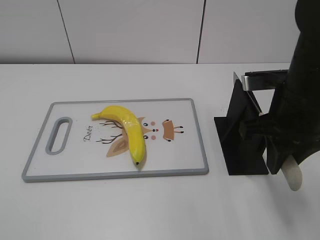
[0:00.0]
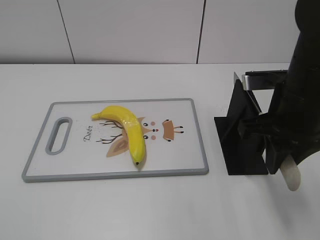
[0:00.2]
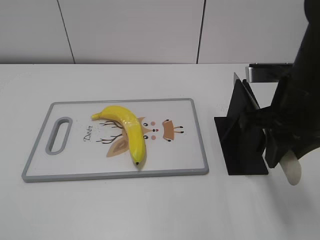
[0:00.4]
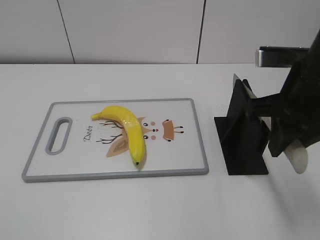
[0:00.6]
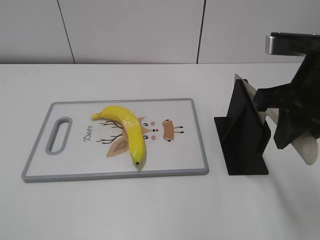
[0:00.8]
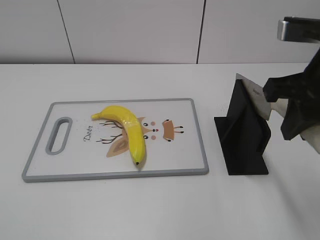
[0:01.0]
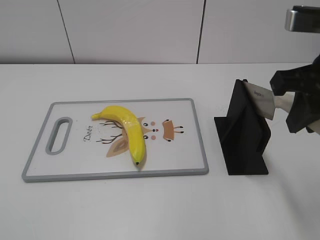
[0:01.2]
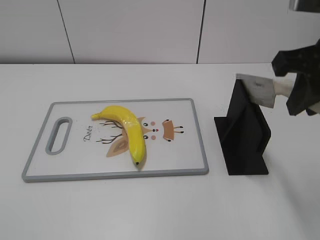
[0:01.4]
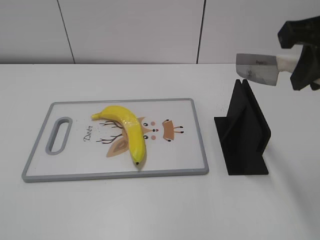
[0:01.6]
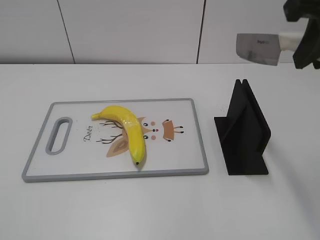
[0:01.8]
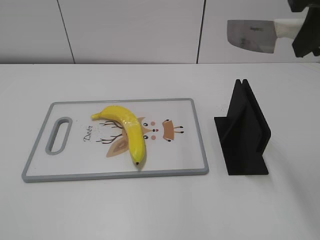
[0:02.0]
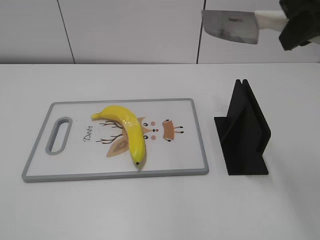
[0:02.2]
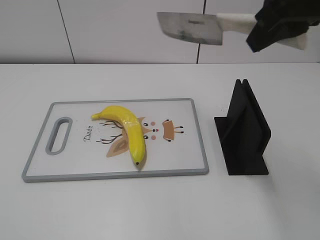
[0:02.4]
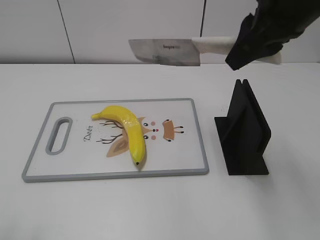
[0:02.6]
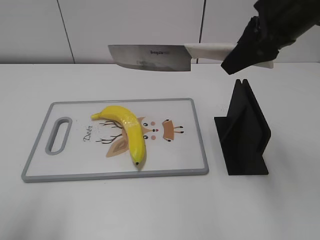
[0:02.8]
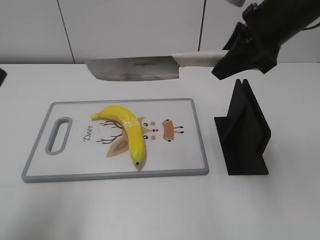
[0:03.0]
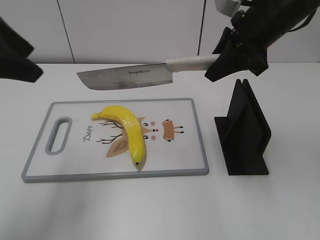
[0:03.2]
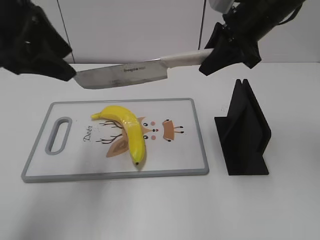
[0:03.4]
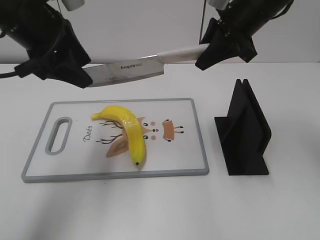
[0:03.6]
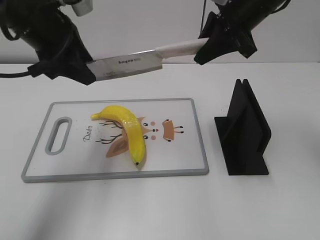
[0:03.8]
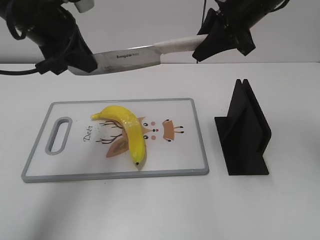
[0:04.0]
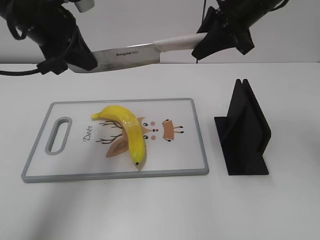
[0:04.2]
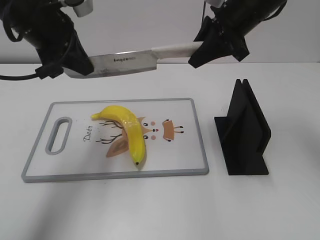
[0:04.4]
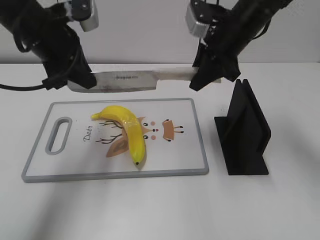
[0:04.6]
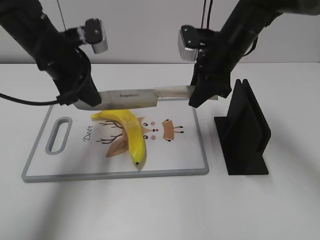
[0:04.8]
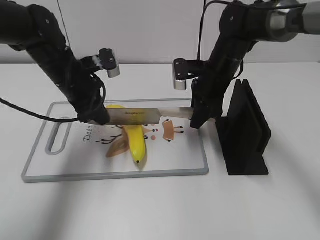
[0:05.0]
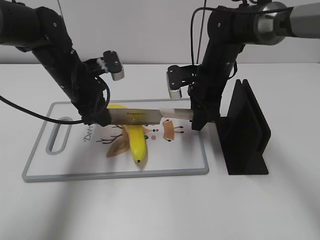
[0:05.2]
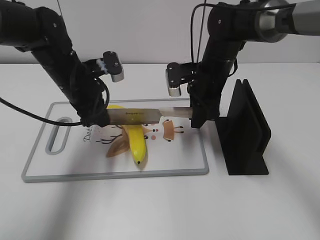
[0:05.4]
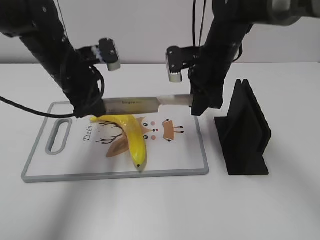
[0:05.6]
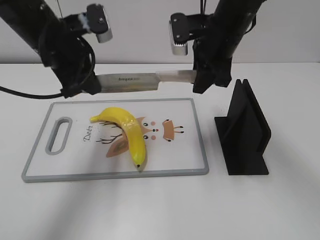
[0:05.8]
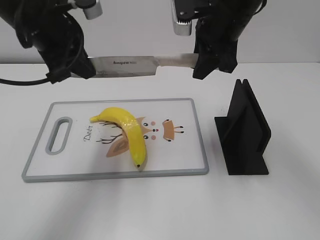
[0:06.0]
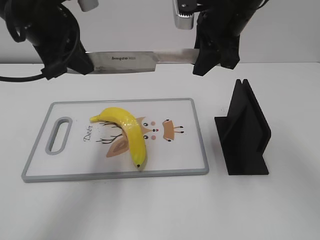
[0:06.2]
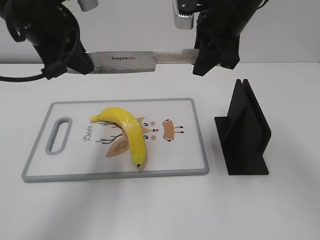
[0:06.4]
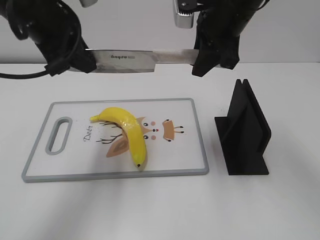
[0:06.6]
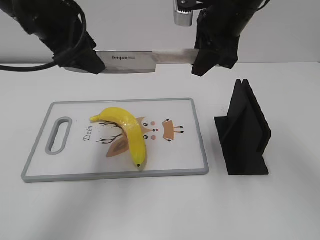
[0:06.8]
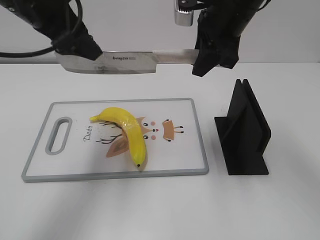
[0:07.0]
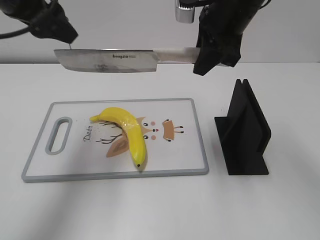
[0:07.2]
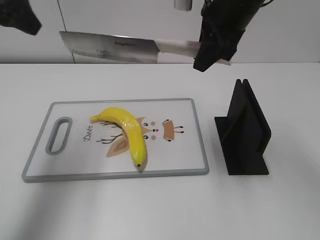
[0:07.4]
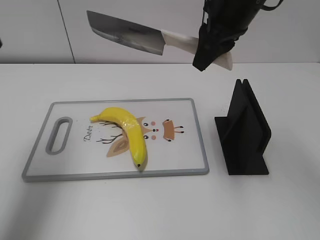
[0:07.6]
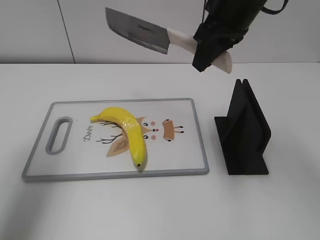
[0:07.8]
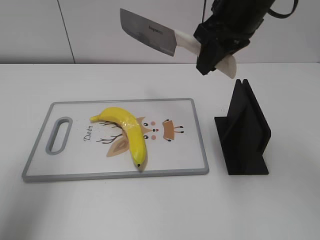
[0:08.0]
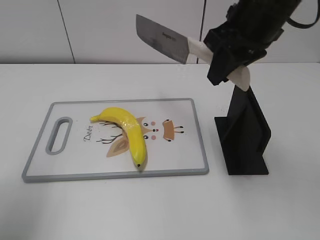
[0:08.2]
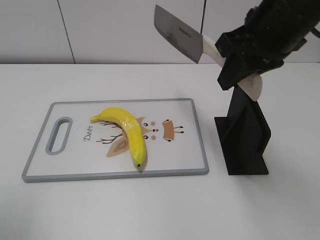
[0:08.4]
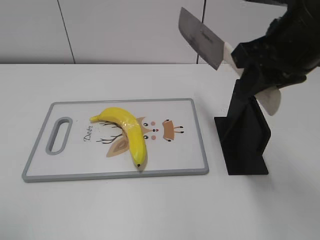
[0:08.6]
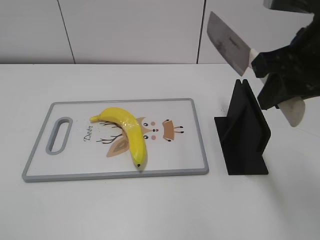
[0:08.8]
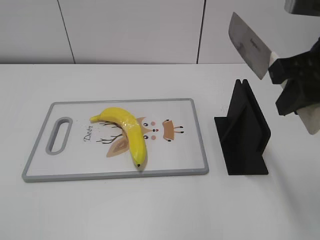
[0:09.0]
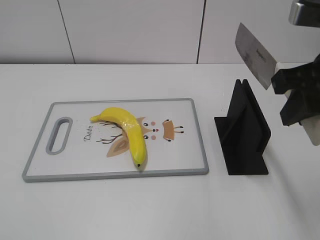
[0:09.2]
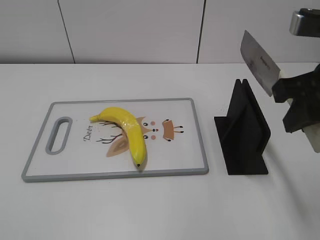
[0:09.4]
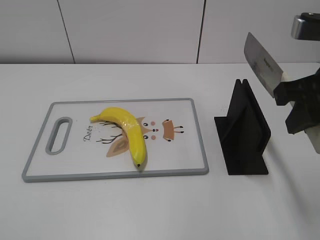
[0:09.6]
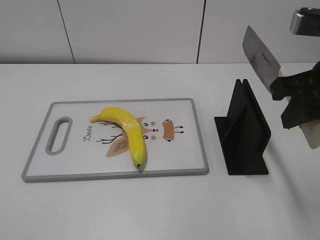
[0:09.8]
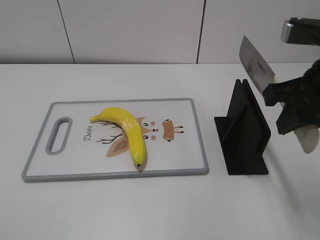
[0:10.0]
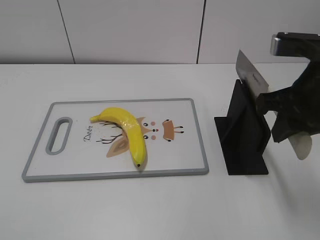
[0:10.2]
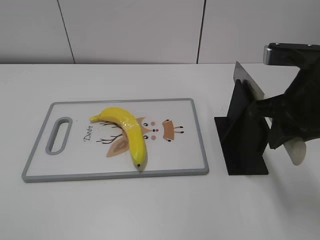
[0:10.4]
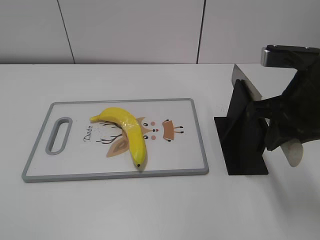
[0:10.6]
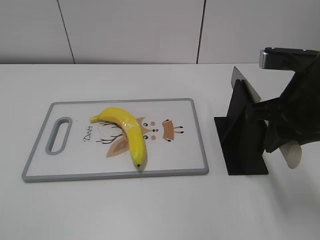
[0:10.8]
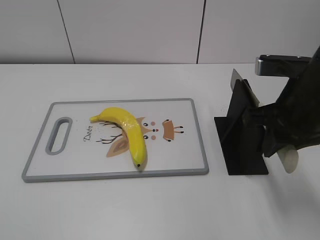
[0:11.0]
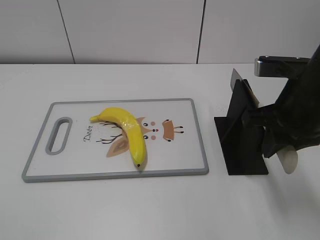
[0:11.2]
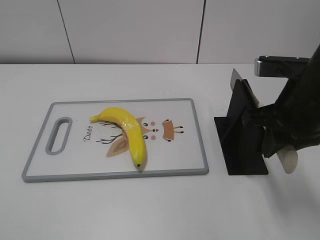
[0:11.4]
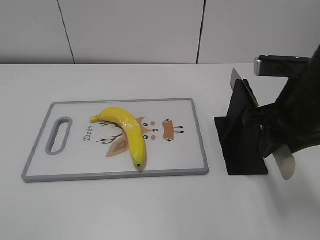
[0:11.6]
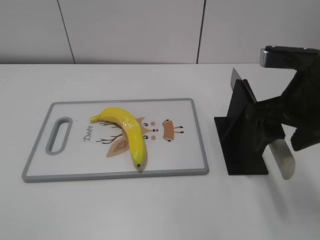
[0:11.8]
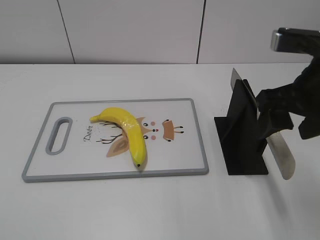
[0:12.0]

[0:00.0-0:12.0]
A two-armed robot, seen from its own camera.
Task of the whole recording: cut plastic banana.
Step, 0:01.2 to 0:06.2: Hold the blade with your left hand.
Step, 0:07.8 to 0:08.6: Lift the knife with your right hand.
0:00.0 to 0:01.6: The right gripper shifts some 10 cm upward.
0:01.6 to 0:03.0: The left gripper heads forward, covering some 20 cm, while the right gripper travels forward by some 10 cm.
0:03.0 to 0:04.4: The left gripper travels forward and to the right by approximately 20 cm, and closes its fingers. Meanwhile the right gripper heads forward, covering approximately 5 cm.
0:04.4 to 0:06.0: The left gripper travels downward and back again, roughly 15 cm each way; the right gripper goes downward and returns, some 15 cm each way.
0:06.0 to 0:07.6: The left gripper heads to the left and upward, covering about 15 cm, and opens up.
0:07.6 to 0:09.0: The right gripper heads backward and to the right, covering roughly 15 cm. Meanwhile the left gripper is displaced backward by roughly 25 cm.
0:09.0 to 0:10.4: The right gripper moves downward, some 5 cm.
0:10.4 to 0:12.0: The right gripper opens its fingers.

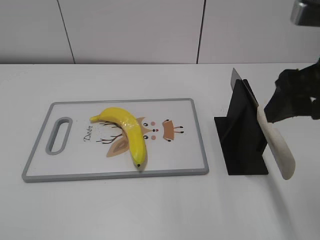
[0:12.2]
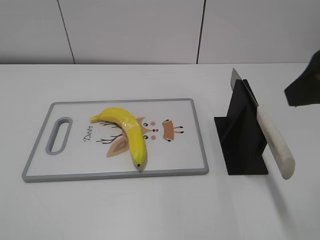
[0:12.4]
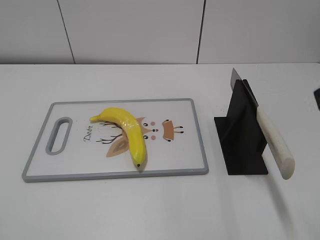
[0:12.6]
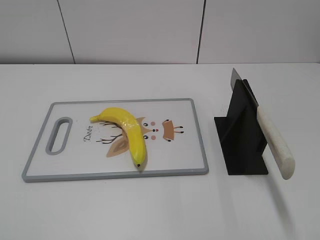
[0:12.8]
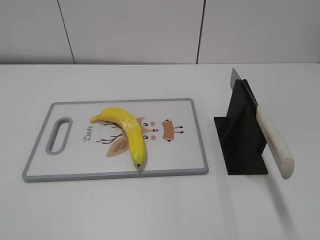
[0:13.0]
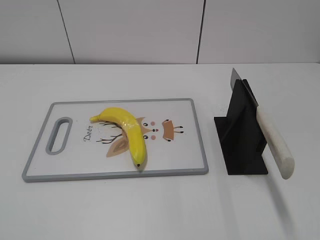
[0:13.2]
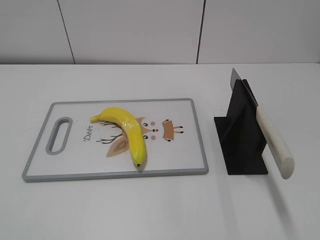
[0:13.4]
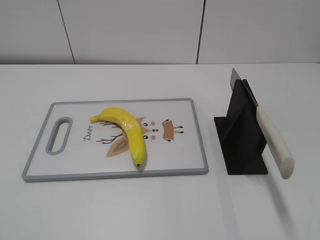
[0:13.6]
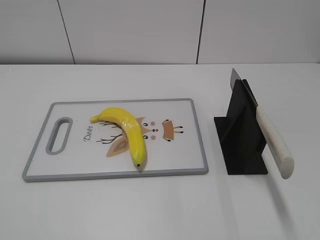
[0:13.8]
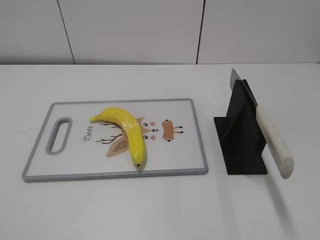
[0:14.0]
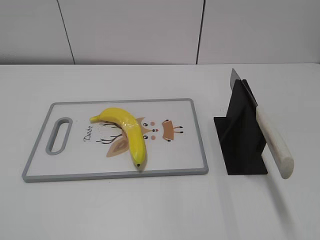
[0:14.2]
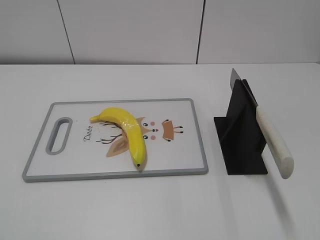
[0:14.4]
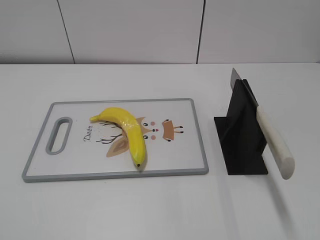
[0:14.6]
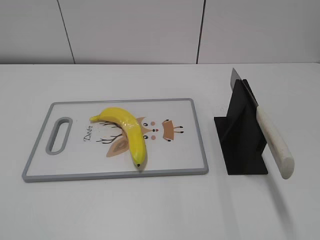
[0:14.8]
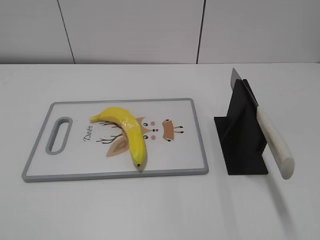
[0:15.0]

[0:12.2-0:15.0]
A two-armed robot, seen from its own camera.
Task of the whole recording: cut plastic banana.
Step, 0:12.2 to 0:15.0: Place the knife on the storage rack with your right hand.
0:12.2 to 0:13.6: The right gripper shifts some 20 cm backward and to the right.

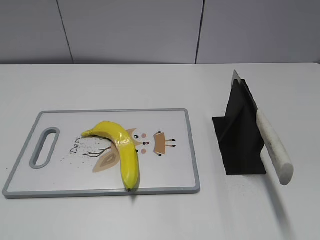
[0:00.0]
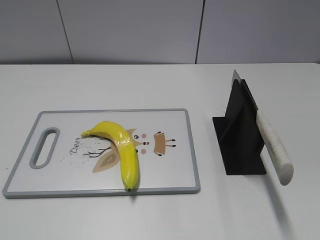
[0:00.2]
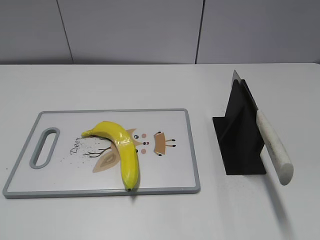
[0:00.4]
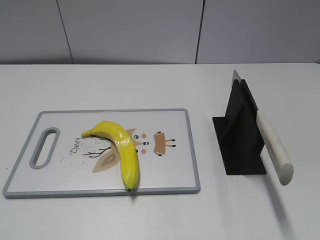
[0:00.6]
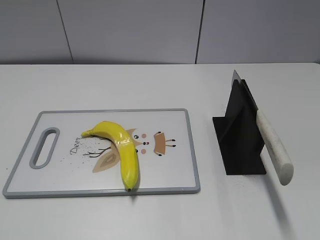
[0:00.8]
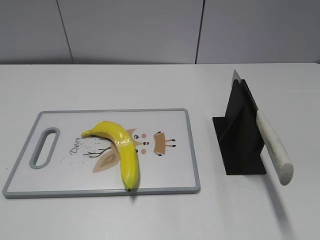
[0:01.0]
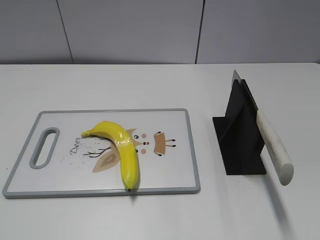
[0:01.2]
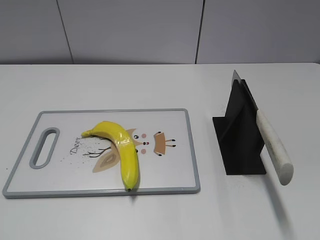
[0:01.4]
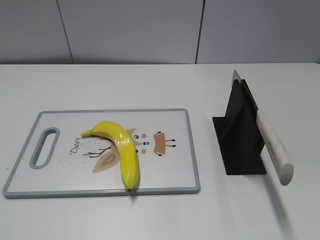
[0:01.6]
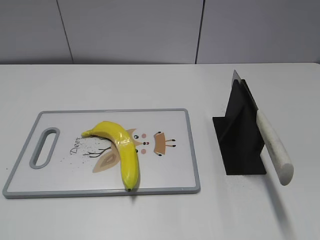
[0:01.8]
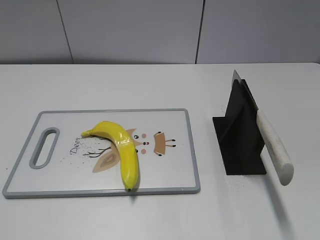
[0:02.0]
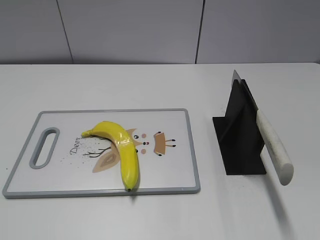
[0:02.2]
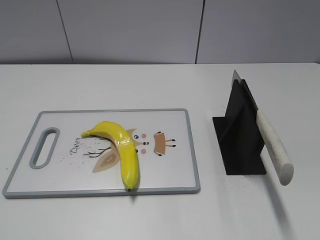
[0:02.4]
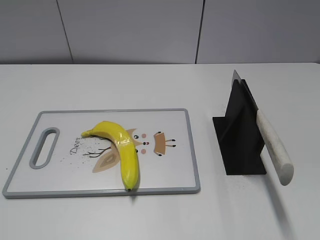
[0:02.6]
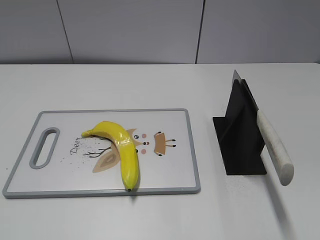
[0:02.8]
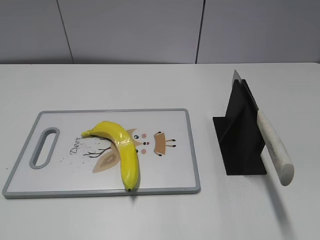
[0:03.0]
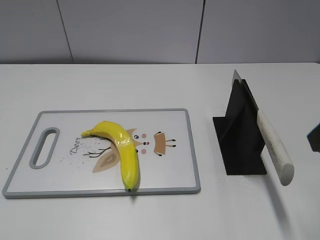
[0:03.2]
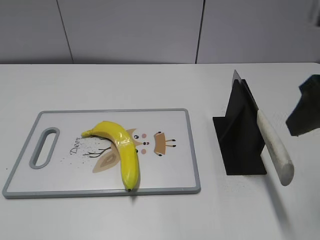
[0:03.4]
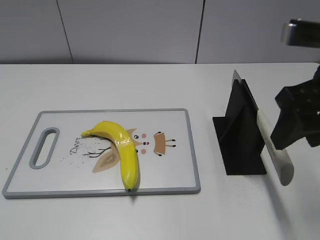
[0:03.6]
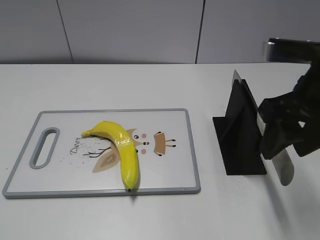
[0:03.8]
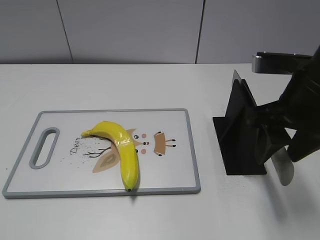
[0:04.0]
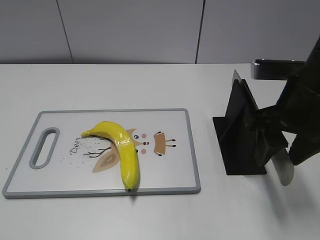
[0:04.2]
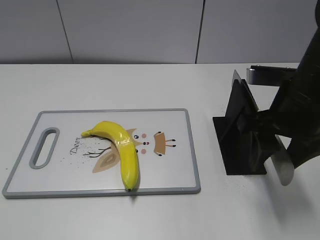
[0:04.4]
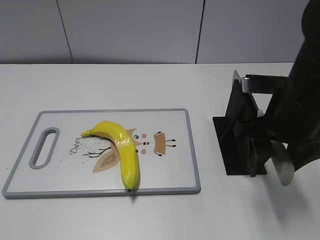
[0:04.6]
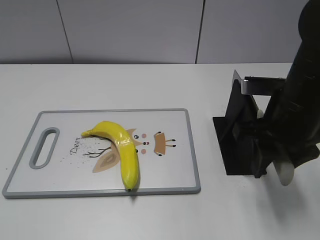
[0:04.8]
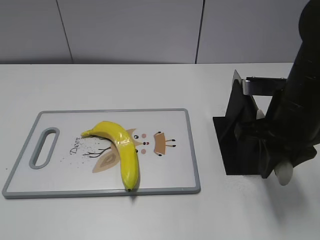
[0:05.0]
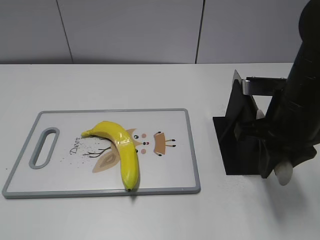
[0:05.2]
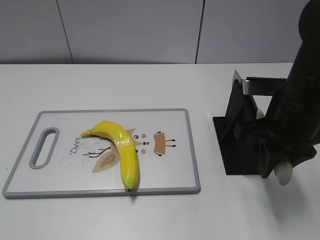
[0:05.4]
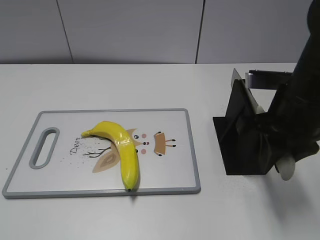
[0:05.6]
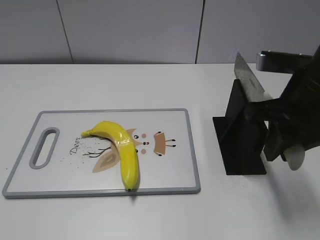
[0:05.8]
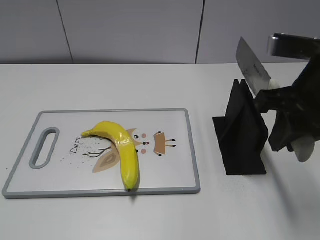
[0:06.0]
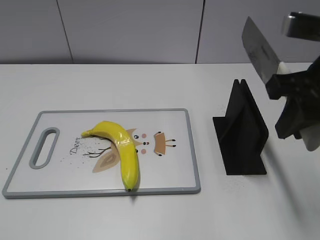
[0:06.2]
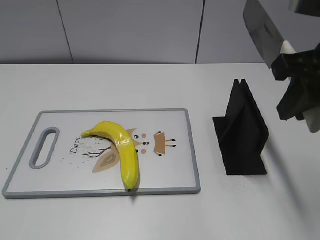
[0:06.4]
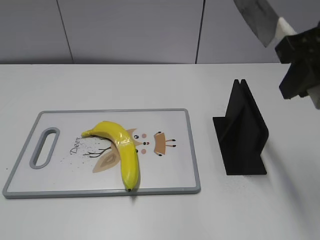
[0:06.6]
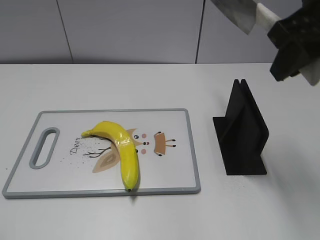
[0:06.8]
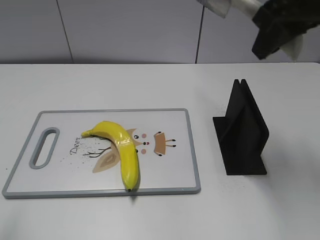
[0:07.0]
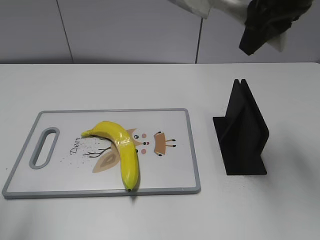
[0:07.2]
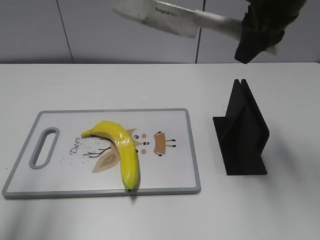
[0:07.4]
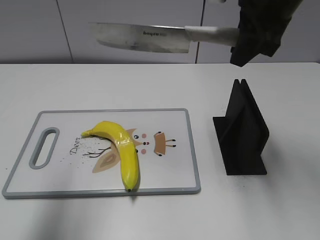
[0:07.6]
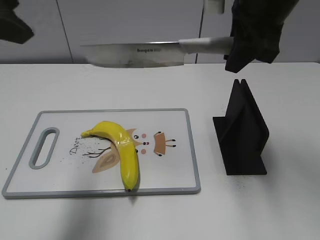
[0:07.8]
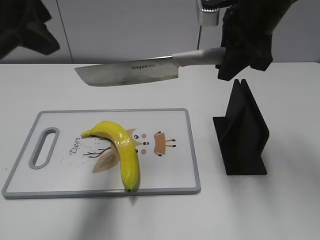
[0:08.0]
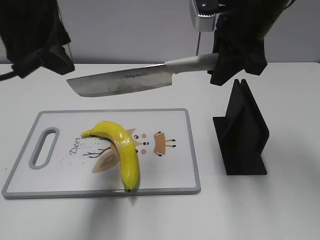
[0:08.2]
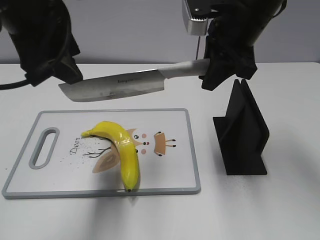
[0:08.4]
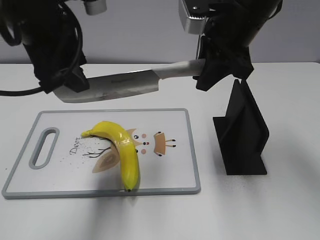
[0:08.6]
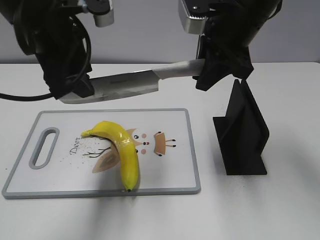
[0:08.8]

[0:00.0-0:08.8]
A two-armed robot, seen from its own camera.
Task of the whole recording: cut plastic banana.
Step, 0:00.0 to 0:06.4: Grab the knife handle with your right hand.
0:03.0 to 0:04.4: The right gripper moves forward, to the left and downward, approximately 15 cm.
0:04.4 to 0:05.8: The right gripper closes up.
0:05.8 to 0:07.4: The left gripper is displaced forward and upward by some 20 cm, while the right gripper goes about 15 cm upward and forward.
0:07.4 to 0:08.8: The right gripper moves downward, approximately 5 cm, while the left gripper heads to the right, forward and downward, covering approximately 20 cm.
